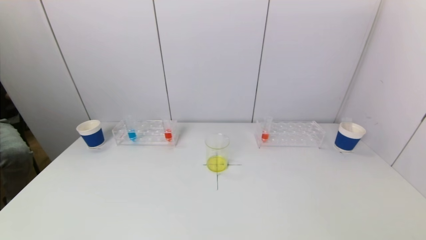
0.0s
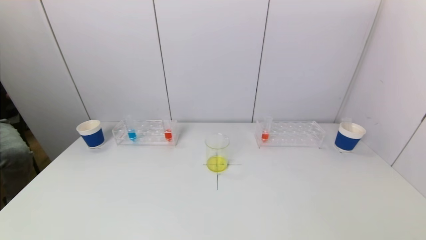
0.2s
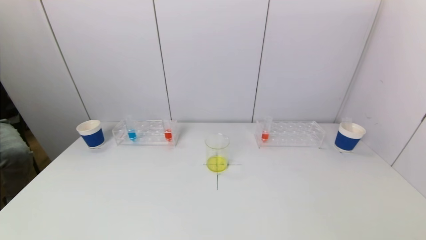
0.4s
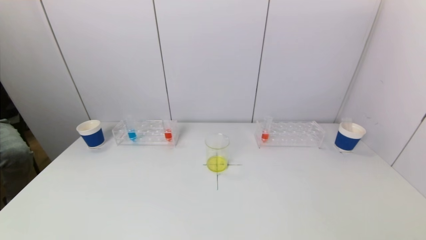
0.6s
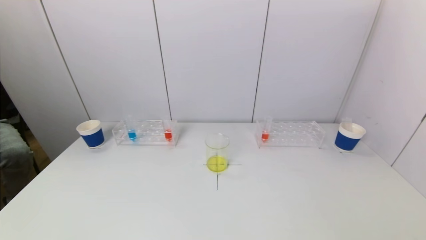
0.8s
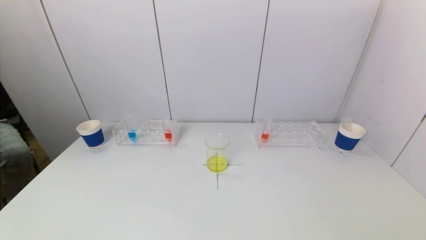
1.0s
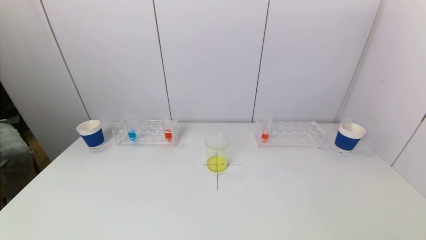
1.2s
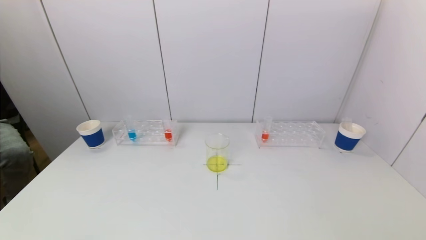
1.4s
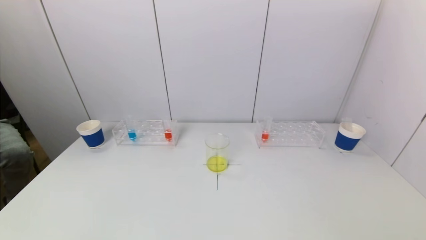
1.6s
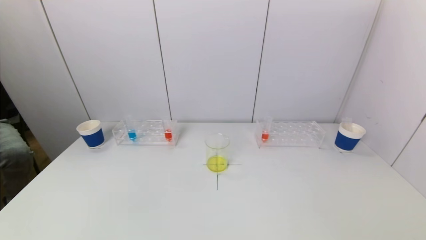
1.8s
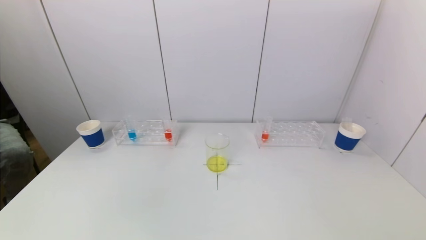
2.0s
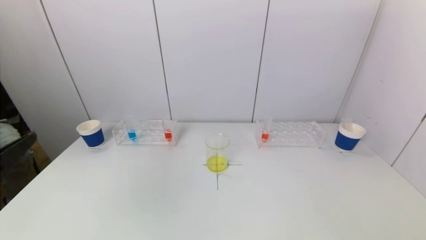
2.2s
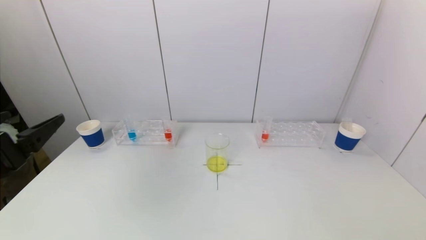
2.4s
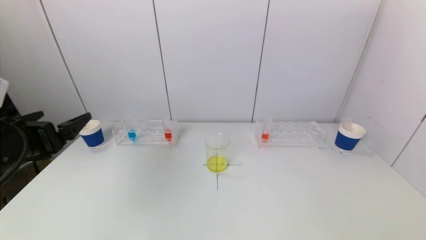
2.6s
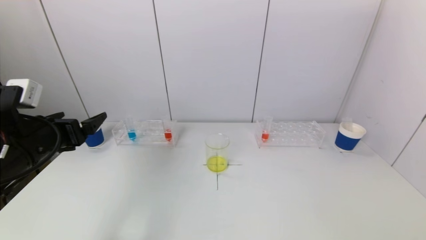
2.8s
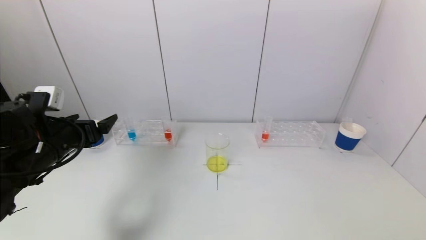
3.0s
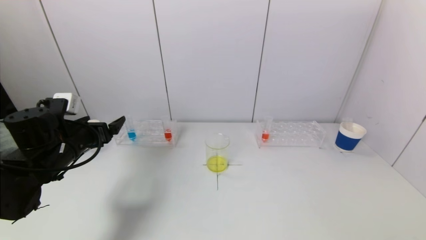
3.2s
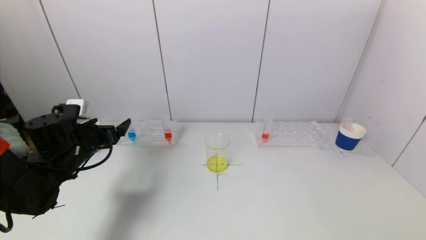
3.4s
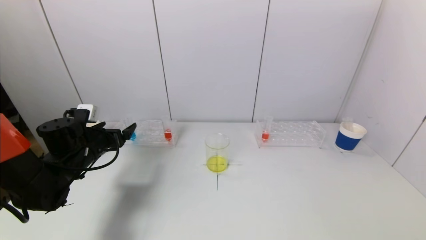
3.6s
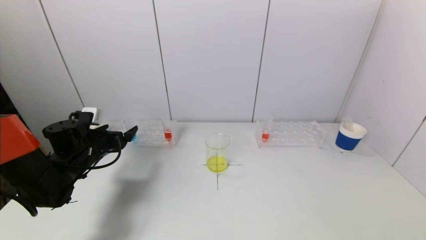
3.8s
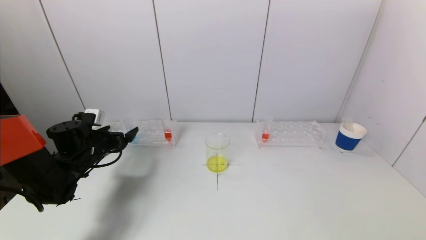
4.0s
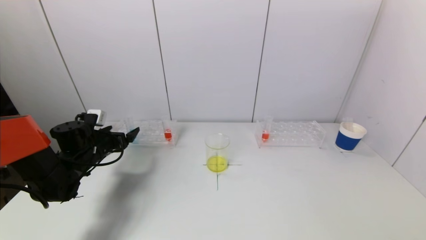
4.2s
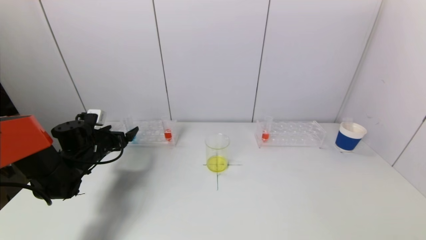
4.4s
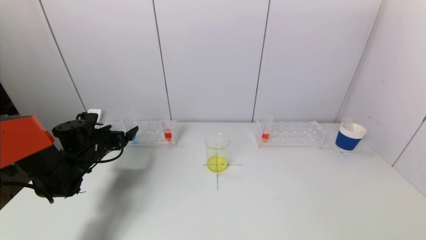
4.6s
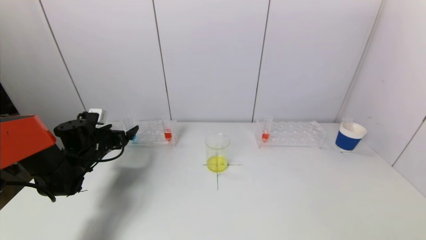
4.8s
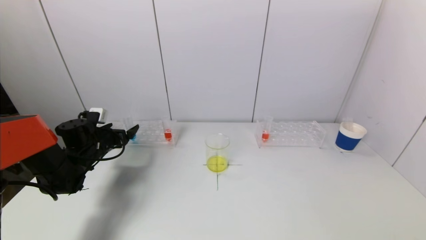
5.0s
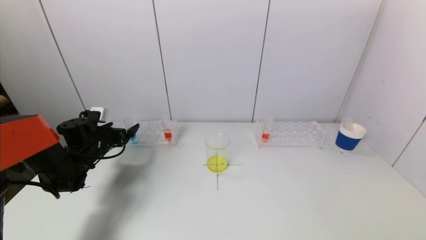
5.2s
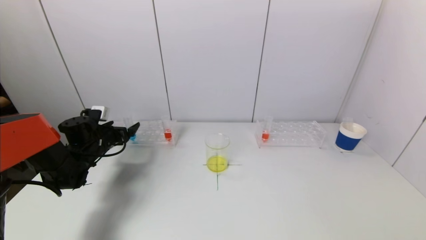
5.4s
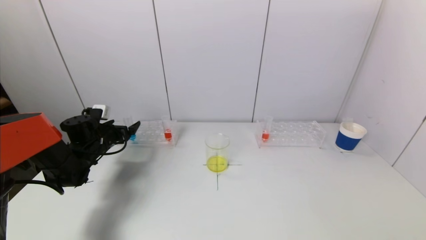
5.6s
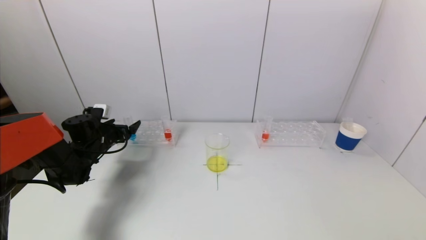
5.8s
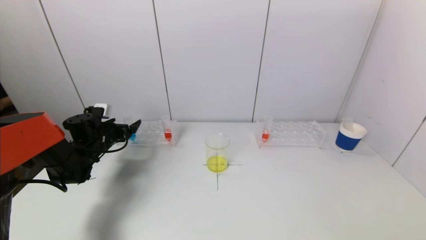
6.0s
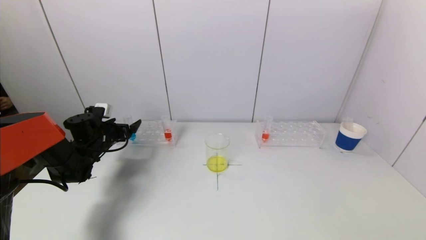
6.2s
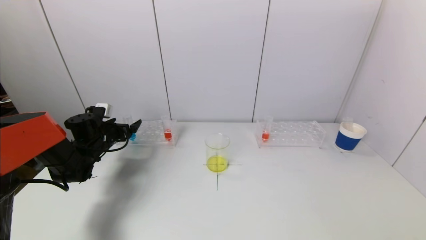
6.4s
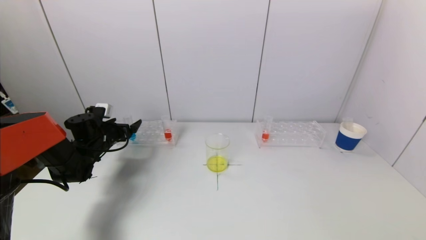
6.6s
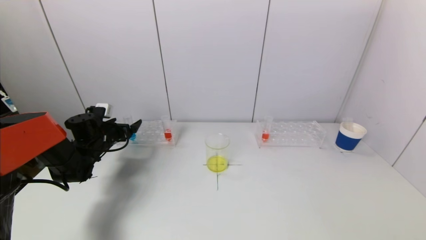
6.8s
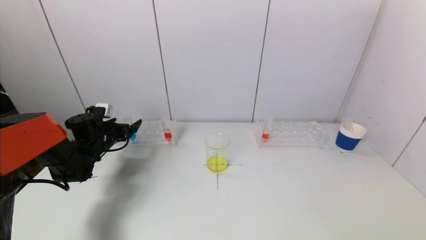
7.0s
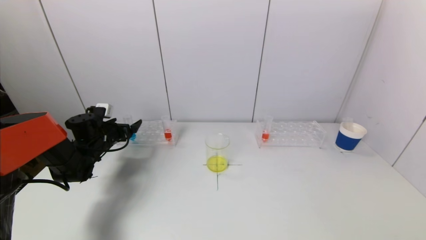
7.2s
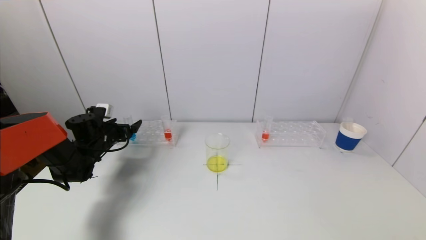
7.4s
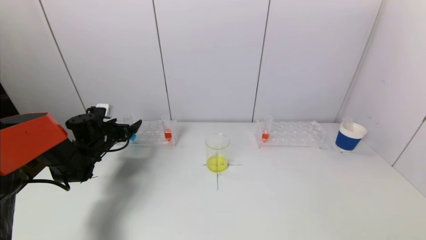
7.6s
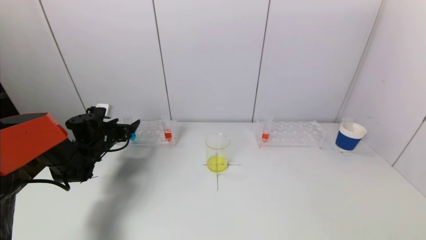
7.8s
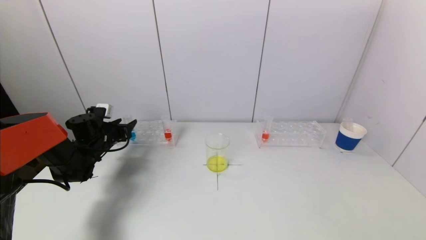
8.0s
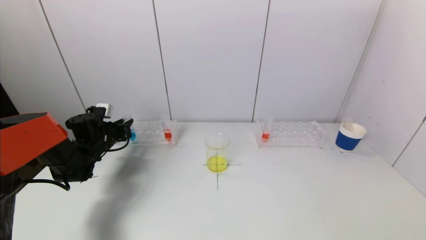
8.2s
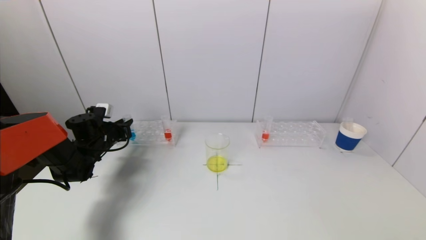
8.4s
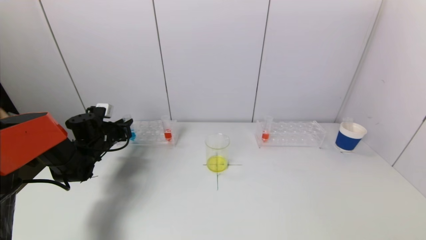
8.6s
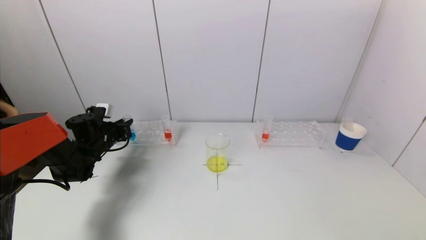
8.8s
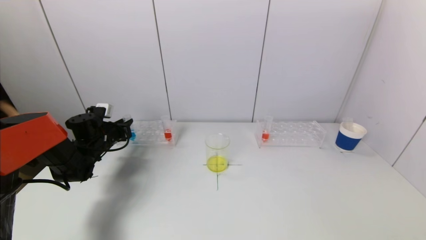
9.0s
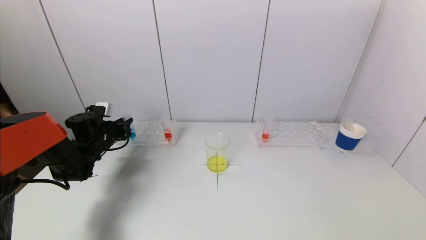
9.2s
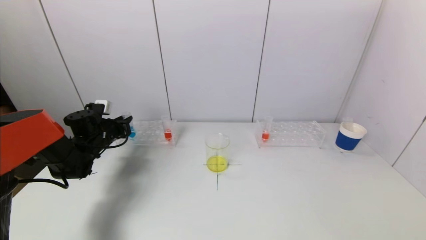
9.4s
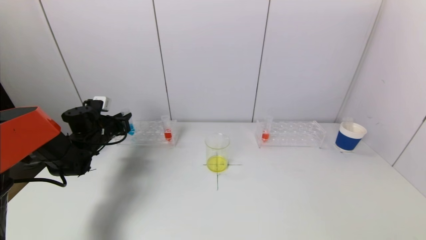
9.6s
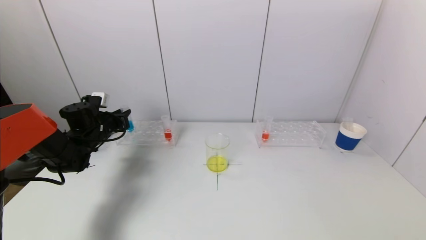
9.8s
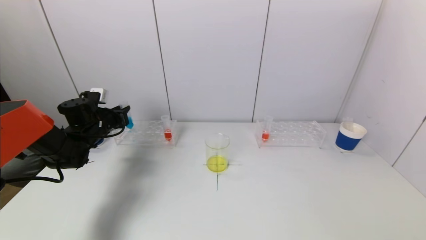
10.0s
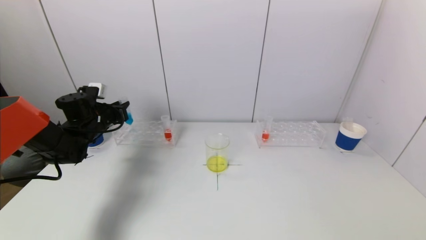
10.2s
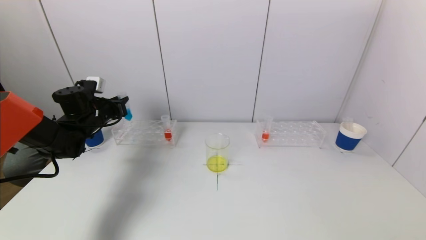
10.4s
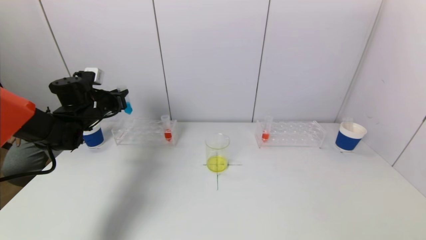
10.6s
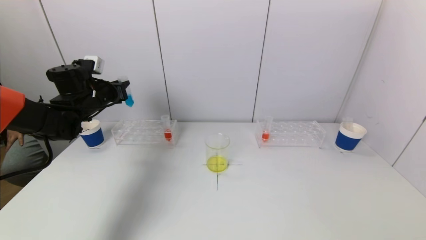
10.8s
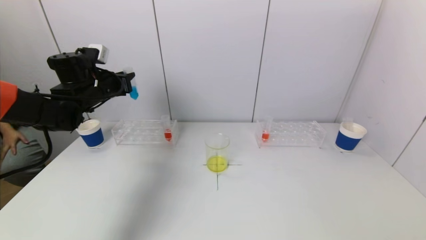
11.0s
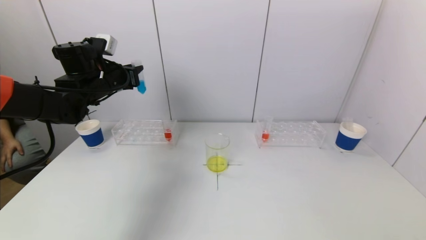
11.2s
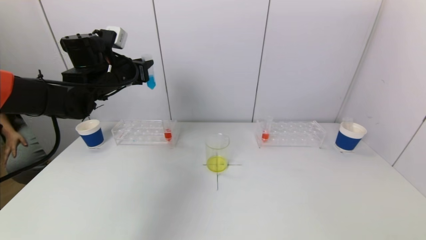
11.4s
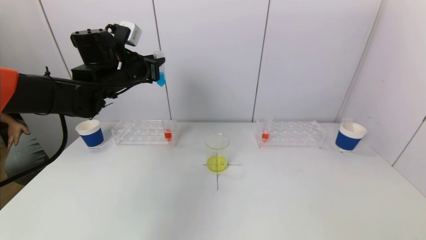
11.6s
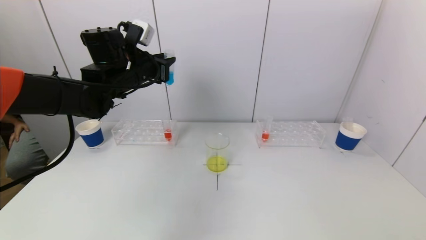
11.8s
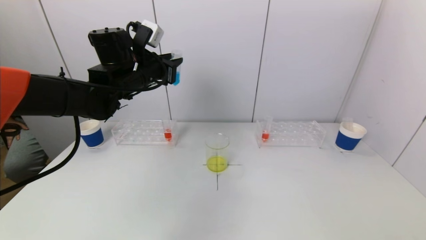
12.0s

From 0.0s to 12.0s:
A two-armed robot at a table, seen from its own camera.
Task of the whole recording: pick up a test tube with pigment on left test tube rack and a test tube with pigment on right test tube rack by grippers and pour them into the beaker.
Step, from 0.0s to 8.6s: Grasp the blue reagent with the left gripper.
From 1.6s to 3.0s: The left gripper shifts some 30 cm forward.
From 3.0s to 4.4s: The left gripper is displaced forward and downward by about 15 cm.
From 4.4s to 6.0s: There are only small adjustments of the grippers.
From 6.0s to 7.6s: Neither gripper changes place.
From 9.0s to 10.4s: The left gripper heads upward, covering roughly 10 cm.
From 10.4s to 12.0s: The left gripper travels to the right and upward by roughly 20 cm.

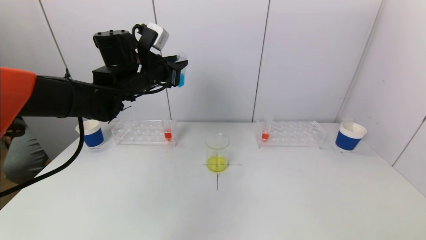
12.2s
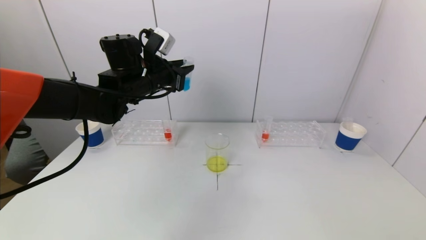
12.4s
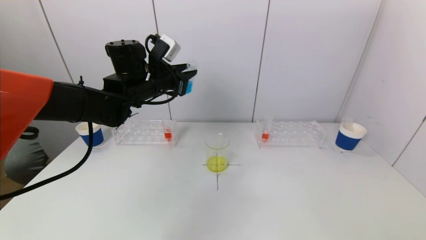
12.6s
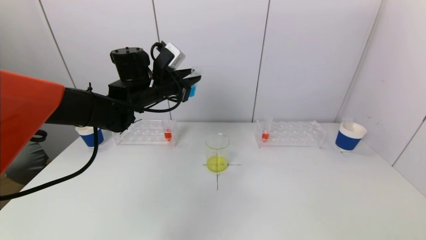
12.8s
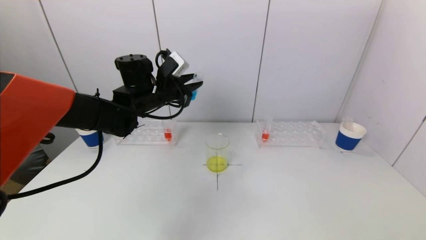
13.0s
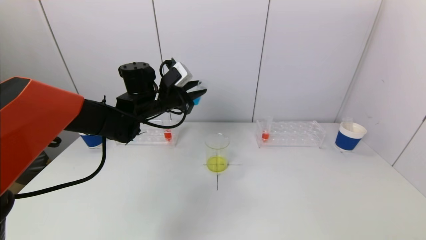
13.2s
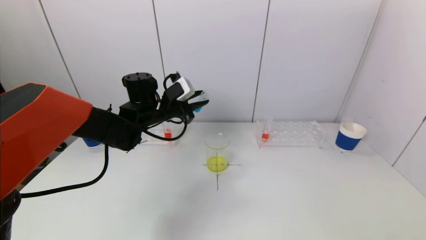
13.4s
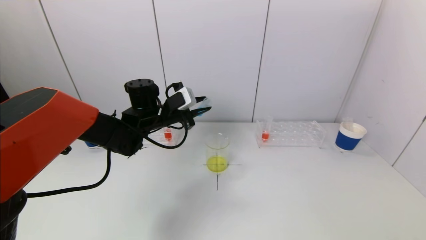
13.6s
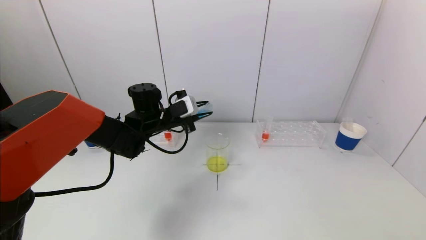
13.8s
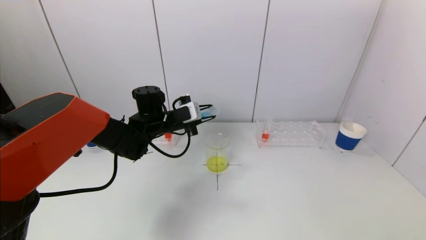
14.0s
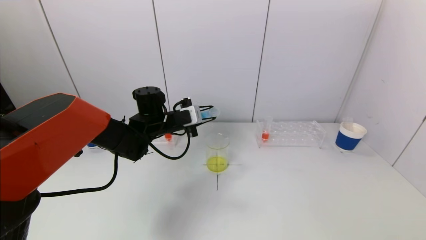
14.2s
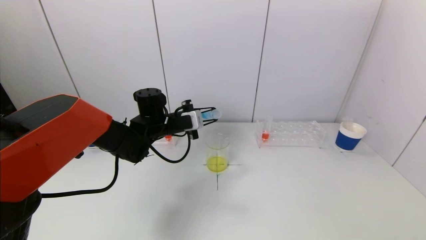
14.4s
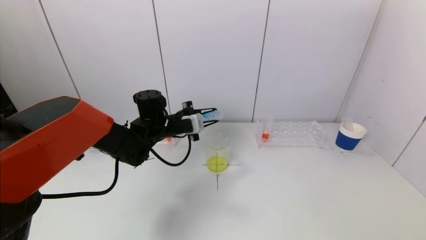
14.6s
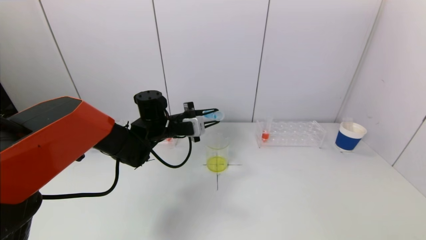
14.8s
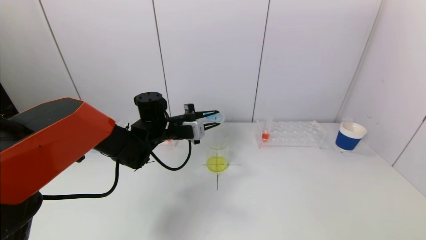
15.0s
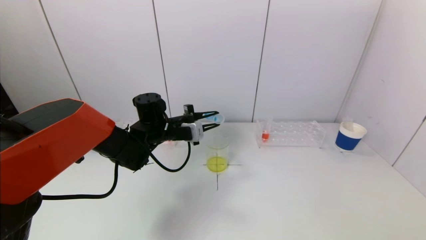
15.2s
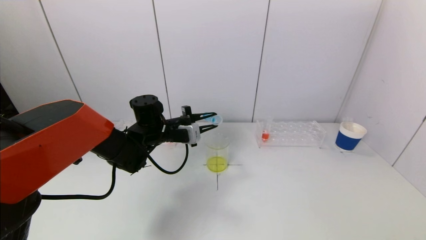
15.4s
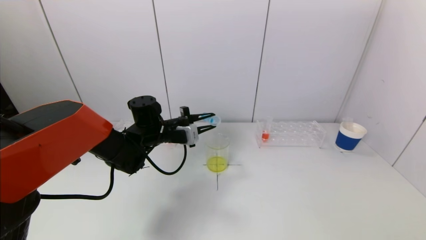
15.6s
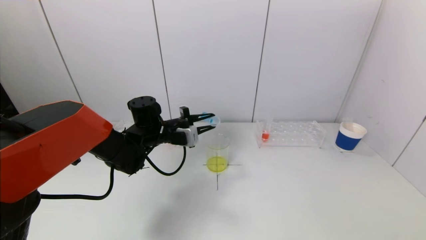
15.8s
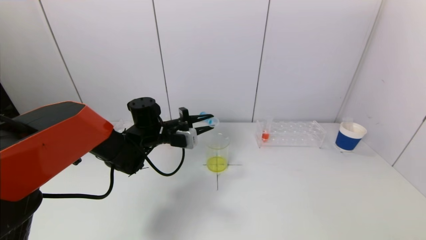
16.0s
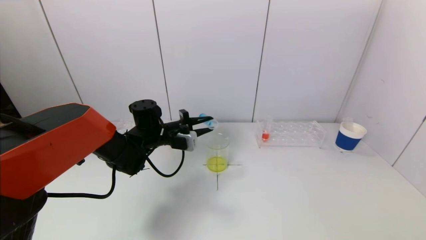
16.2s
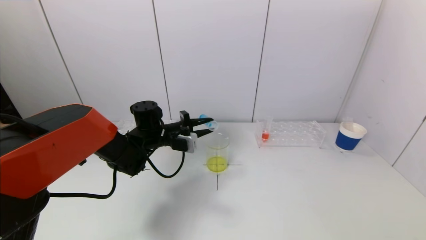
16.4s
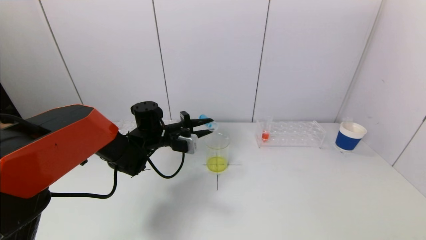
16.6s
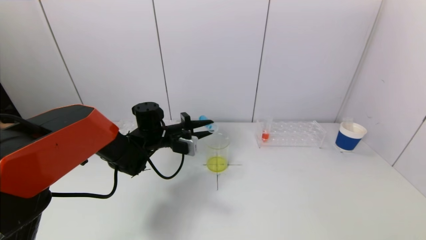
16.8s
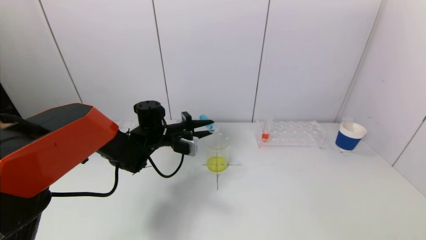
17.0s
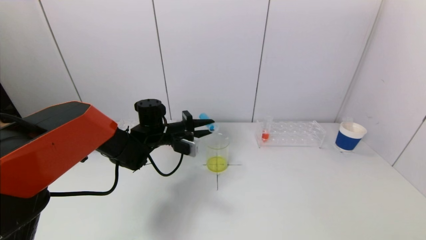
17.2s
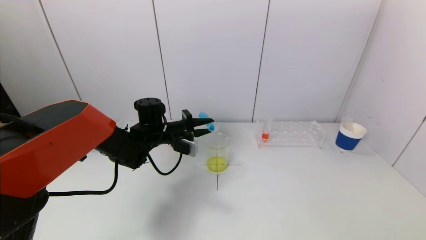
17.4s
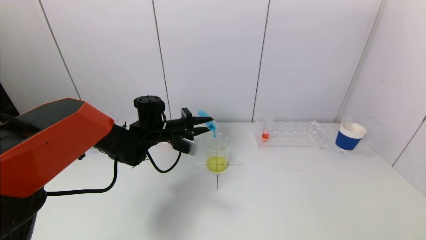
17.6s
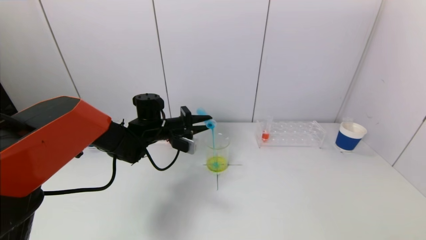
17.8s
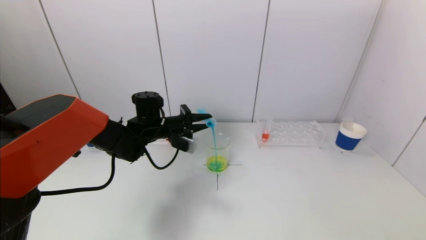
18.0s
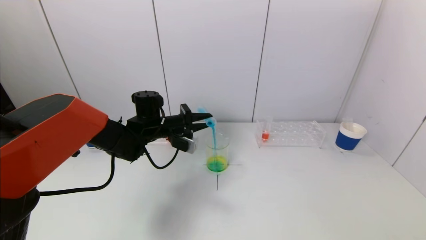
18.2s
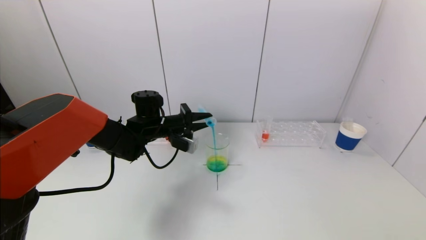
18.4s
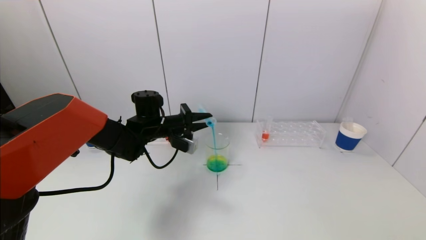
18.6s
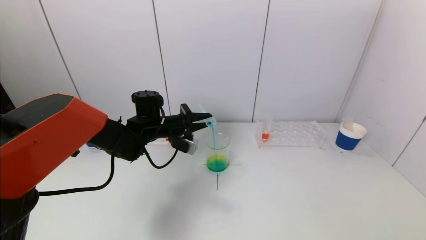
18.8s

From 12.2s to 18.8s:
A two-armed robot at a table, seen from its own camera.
Task of the whole recording: pick up a test tube with pigment on left test tube rack and a test tube with pigment on right test tube rack by grippers and pour them into the beaker.
From 12.2s to 13.8s: The left gripper heads downward, covering some 10 cm.
From 15.4s to 17.2s: The grippers stay close to where they were, moving slightly.
From 17.2s to 18.8s: The grippers make only small movements.
